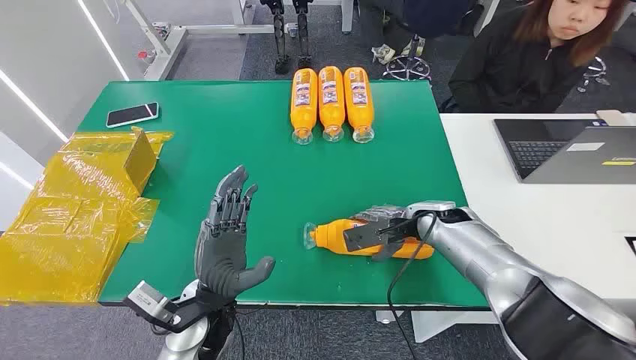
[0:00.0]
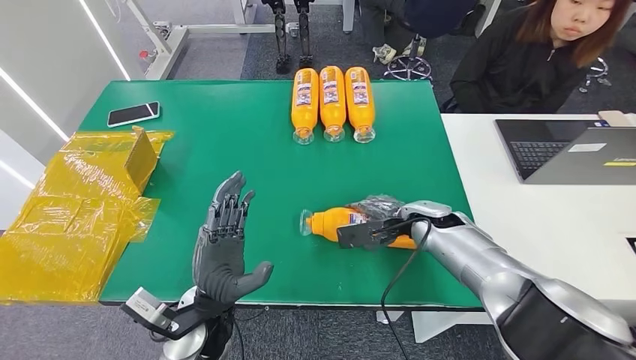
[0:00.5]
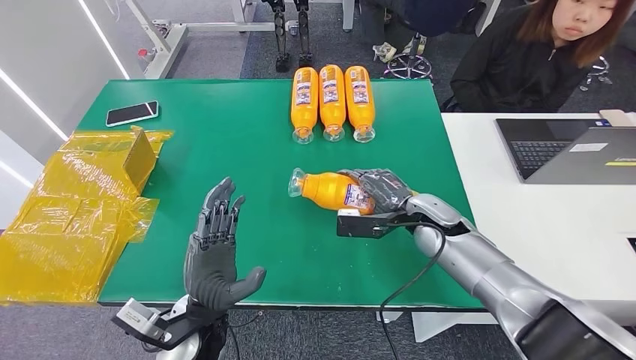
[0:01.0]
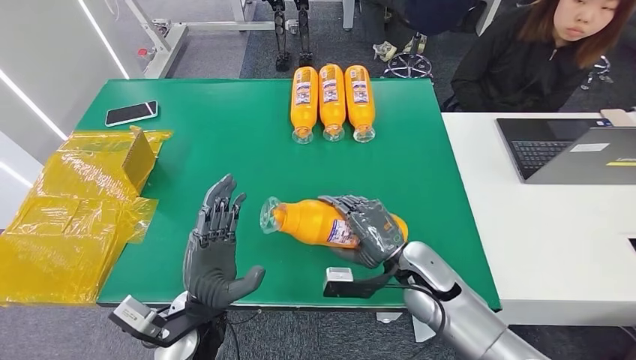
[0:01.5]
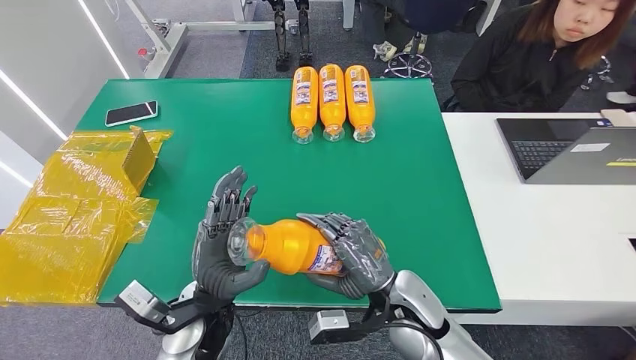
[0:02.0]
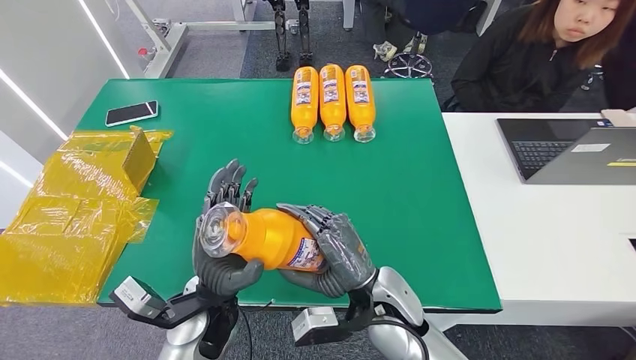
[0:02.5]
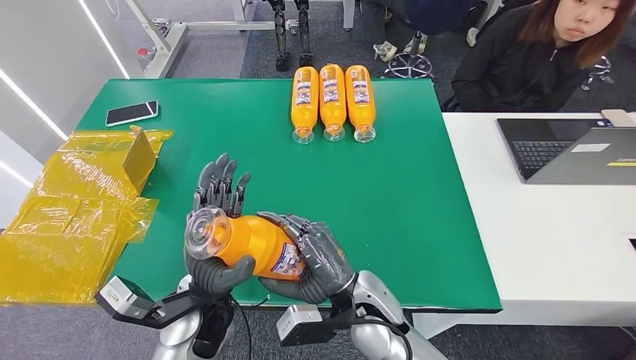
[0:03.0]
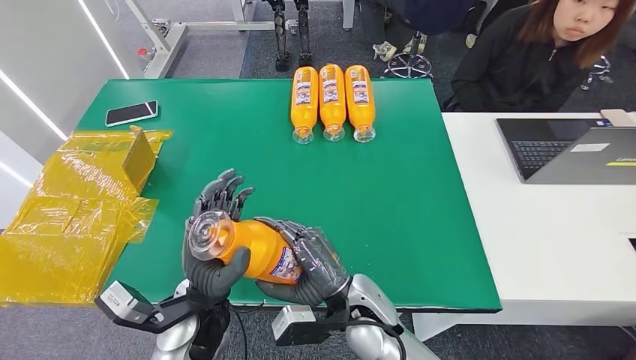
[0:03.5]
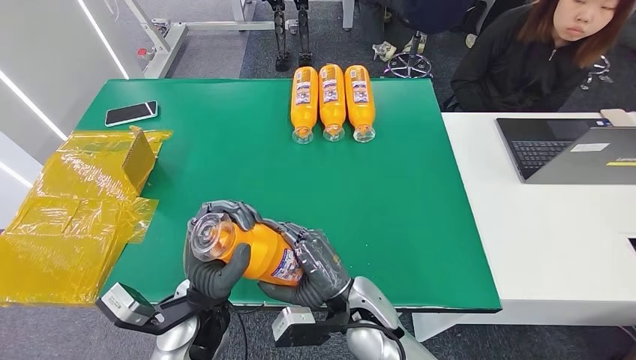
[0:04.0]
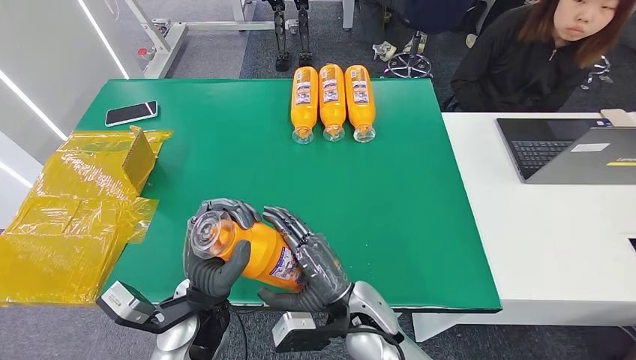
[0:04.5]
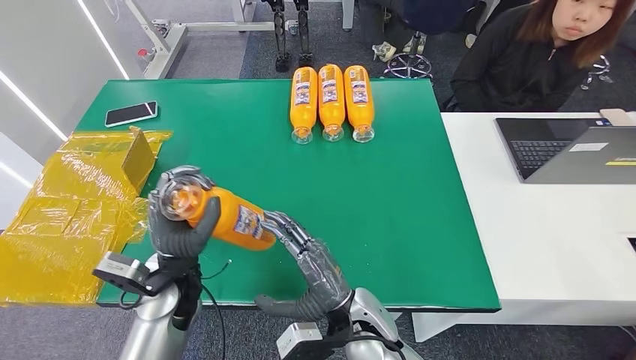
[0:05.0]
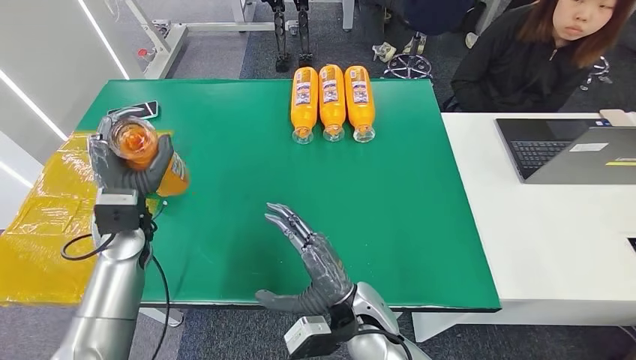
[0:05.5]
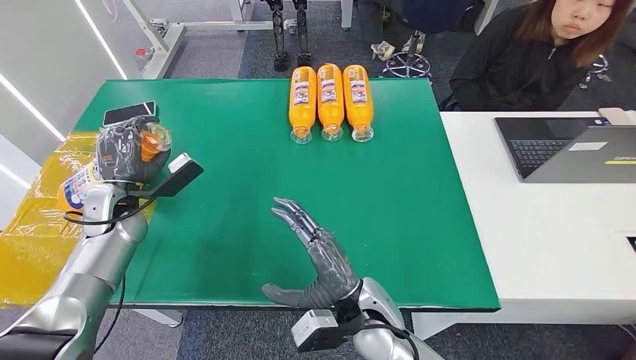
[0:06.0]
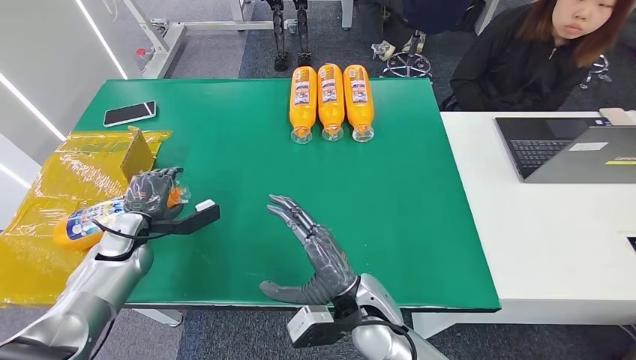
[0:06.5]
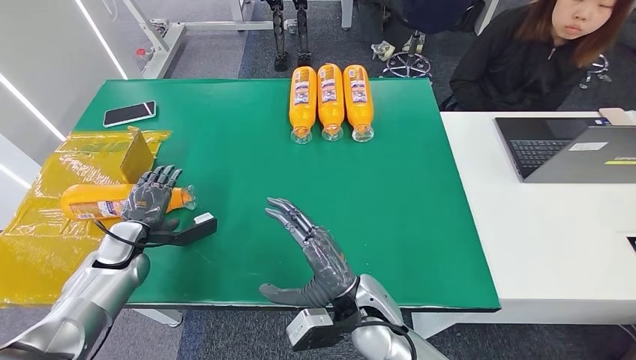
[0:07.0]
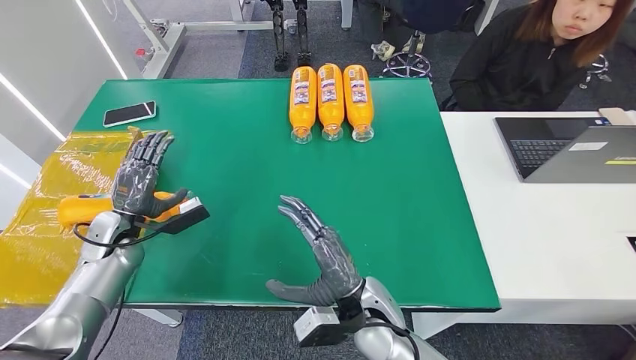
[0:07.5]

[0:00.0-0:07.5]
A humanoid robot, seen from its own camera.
Step, 0:00.0 to 0:02.0: Pick up the bottle from the table.
Step, 0:02.5 to 0:07.5: Turn the bottle to the front side.
0:02.0 to 0:04.0: The right hand heads to the left, covering roughly 10 cm.
0:04.0 to 0:05.5: The left hand goes roughly 20 cm to the left and forward.
0:05.5 to 0:07.5: The left hand moves to the left and downward, about 10 cm.
